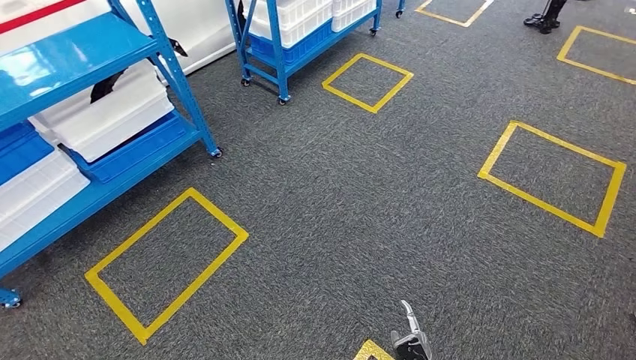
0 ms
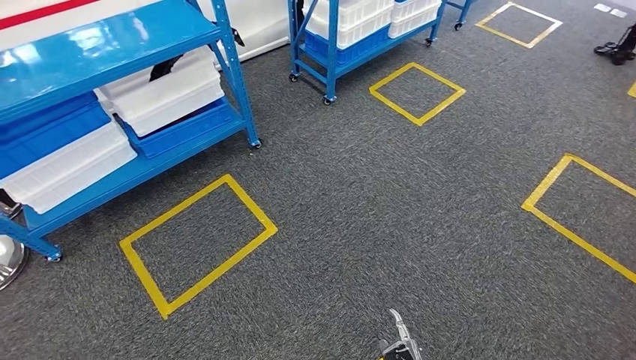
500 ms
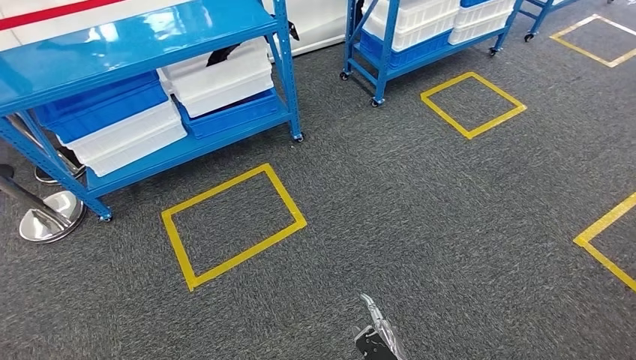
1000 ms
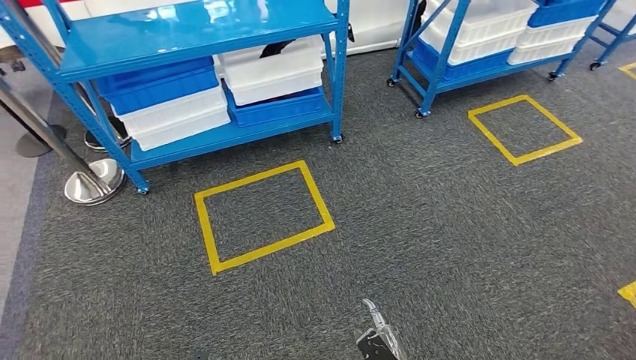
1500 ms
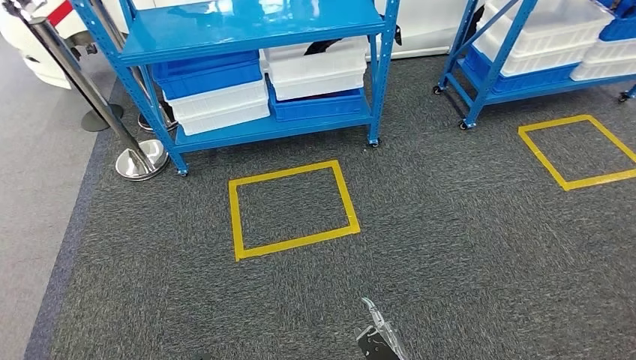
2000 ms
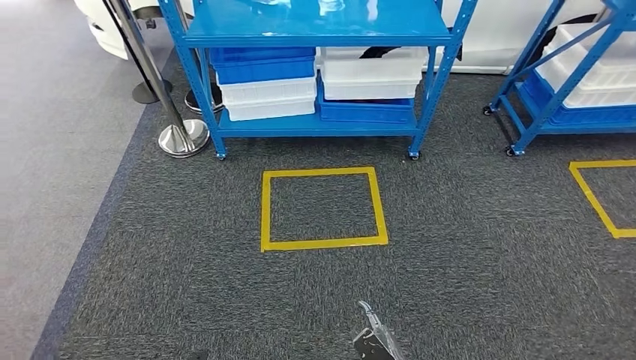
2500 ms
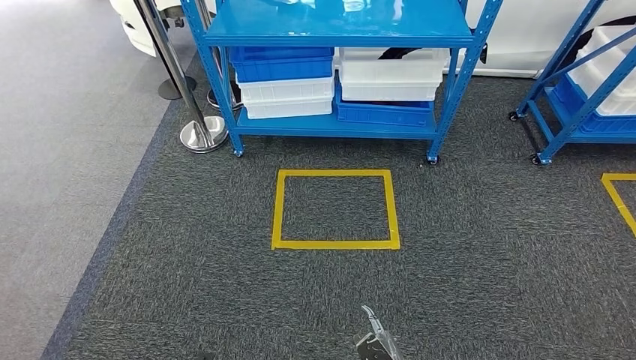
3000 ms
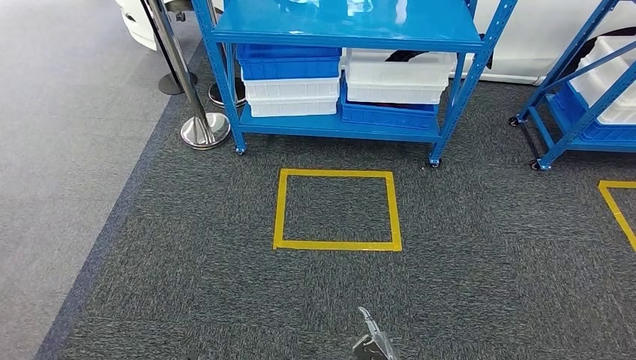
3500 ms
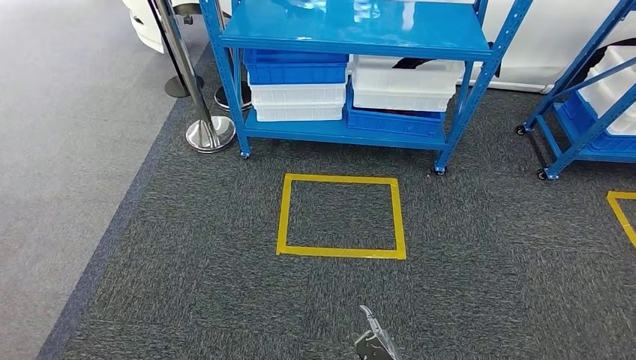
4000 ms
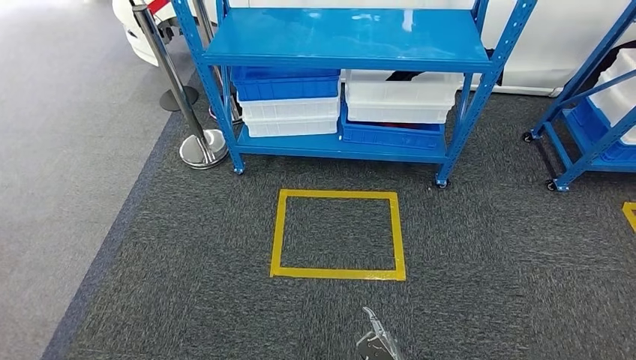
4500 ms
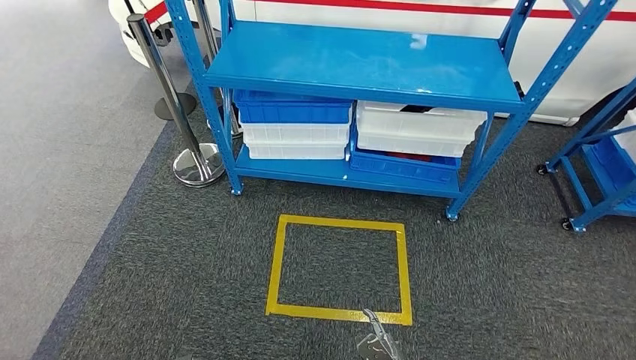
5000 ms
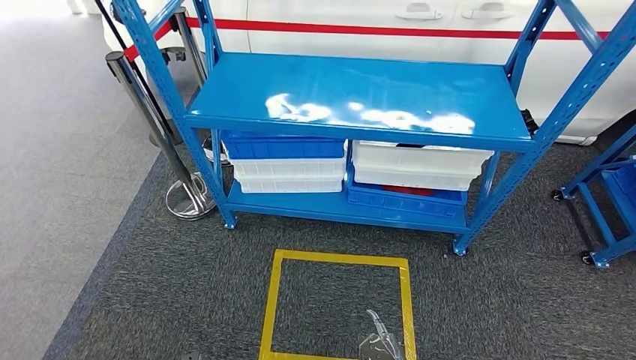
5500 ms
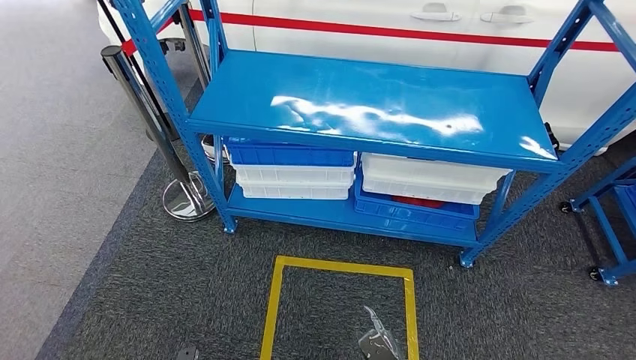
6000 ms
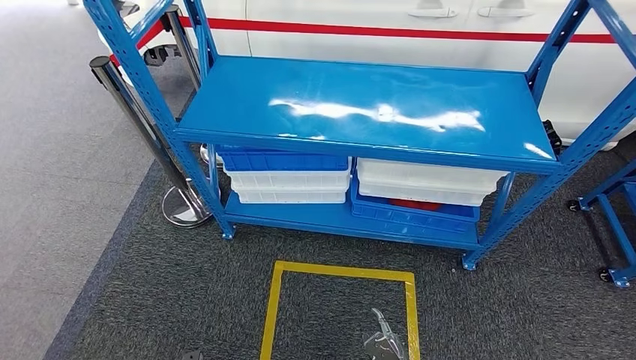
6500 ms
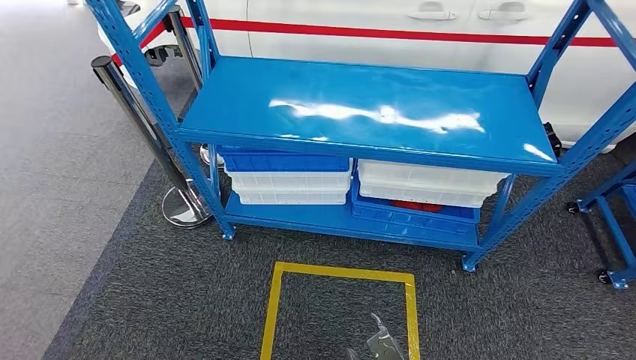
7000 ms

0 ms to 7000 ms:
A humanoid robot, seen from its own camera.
Step, 0 ms to 6500 ms: Move to the initial position of the shelf.
